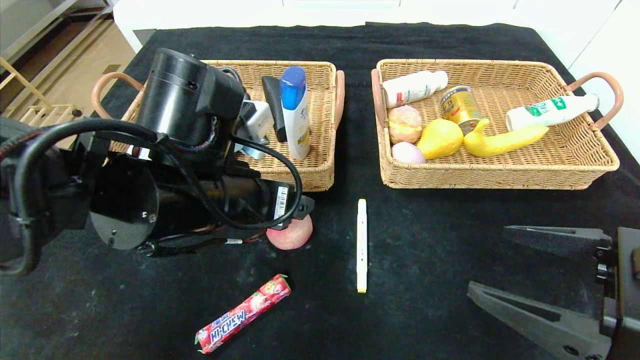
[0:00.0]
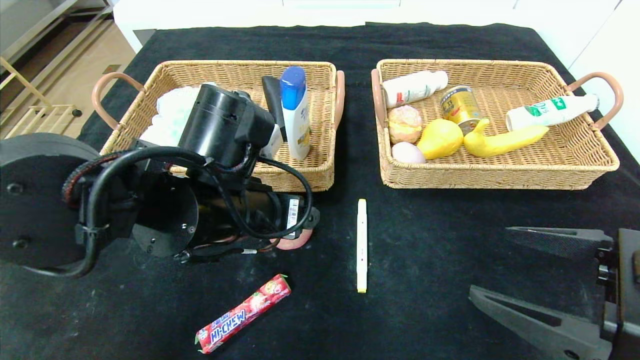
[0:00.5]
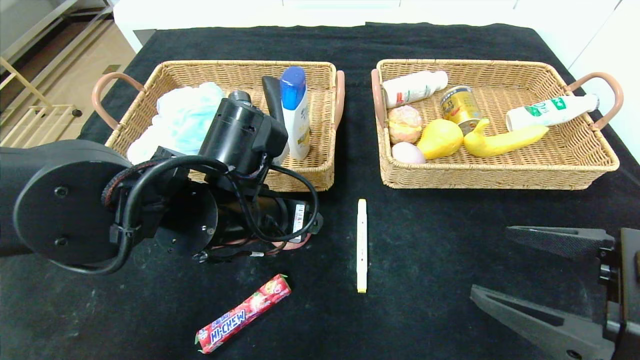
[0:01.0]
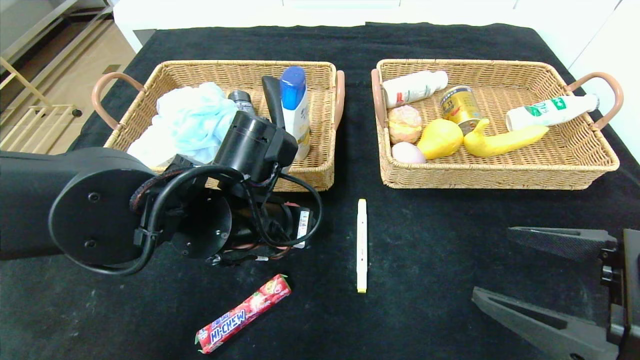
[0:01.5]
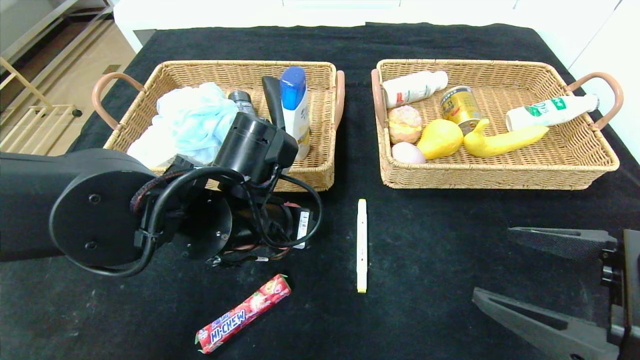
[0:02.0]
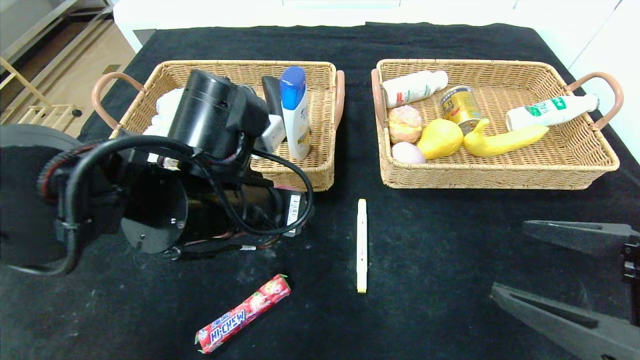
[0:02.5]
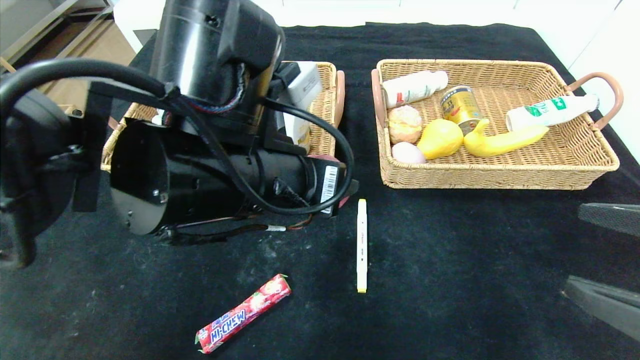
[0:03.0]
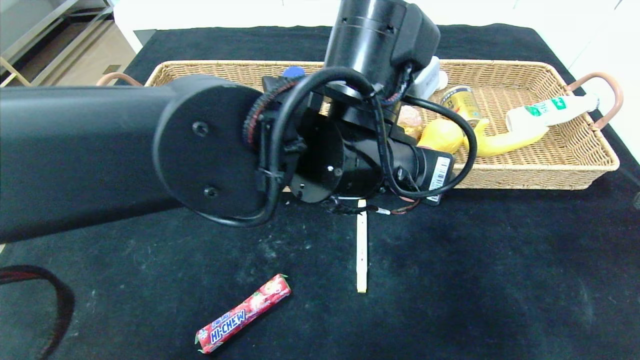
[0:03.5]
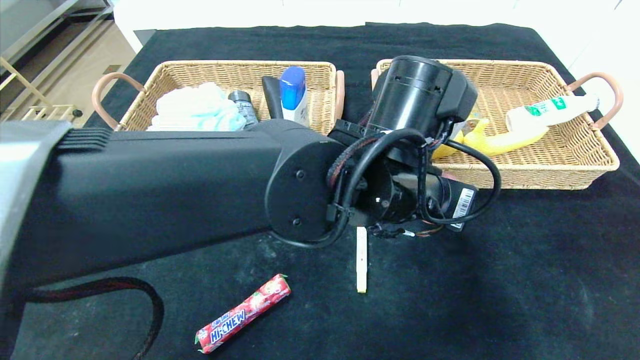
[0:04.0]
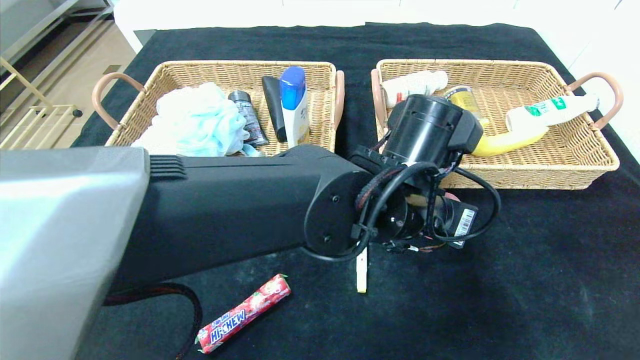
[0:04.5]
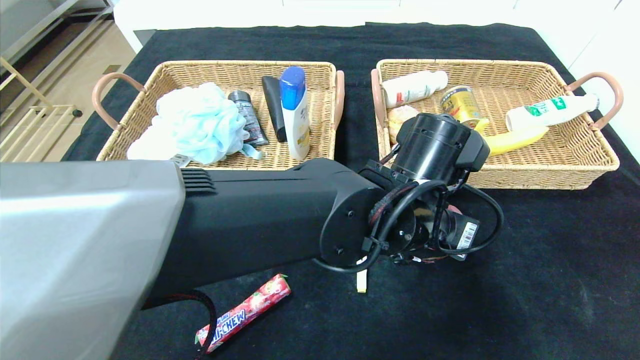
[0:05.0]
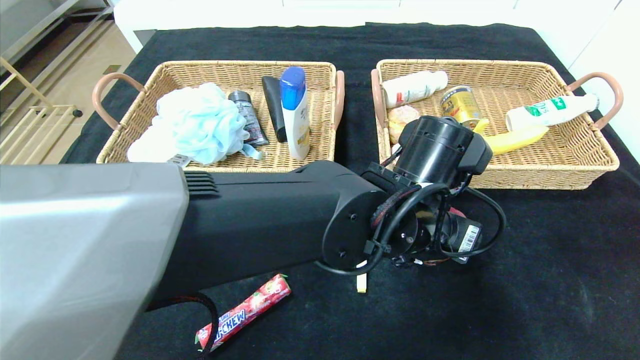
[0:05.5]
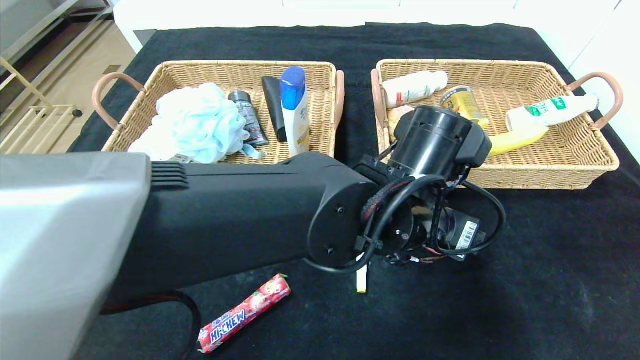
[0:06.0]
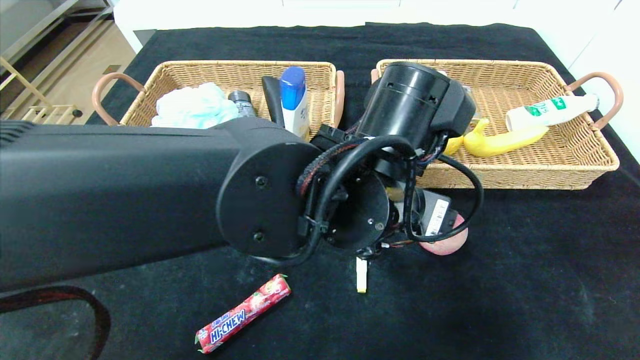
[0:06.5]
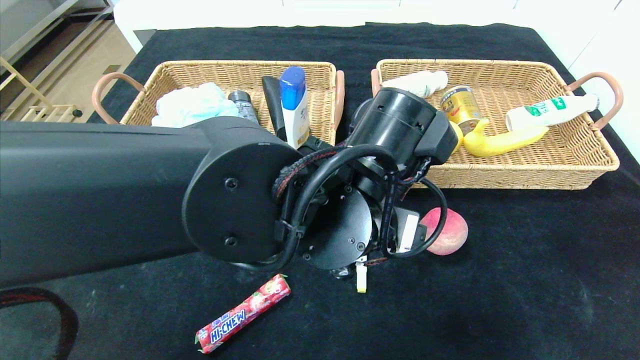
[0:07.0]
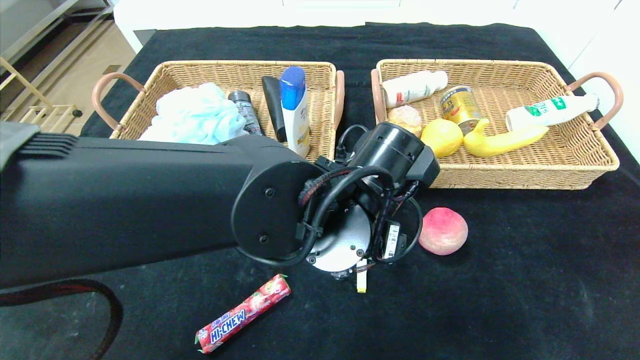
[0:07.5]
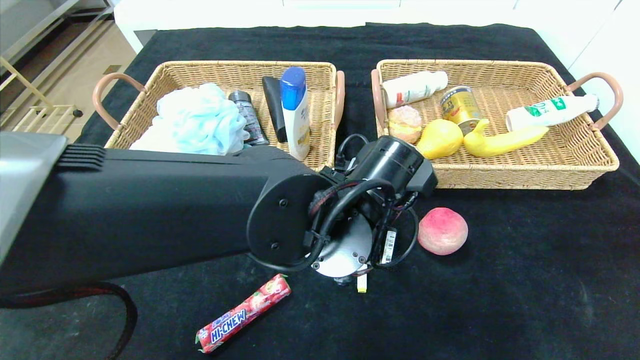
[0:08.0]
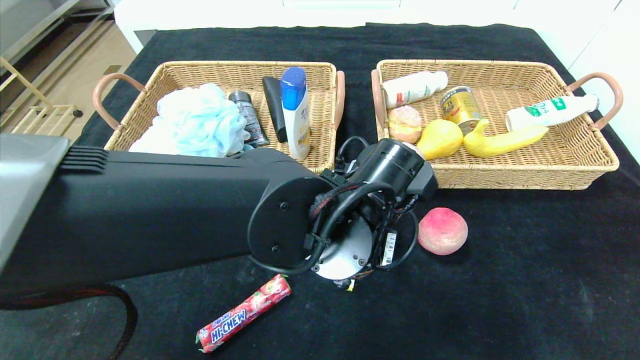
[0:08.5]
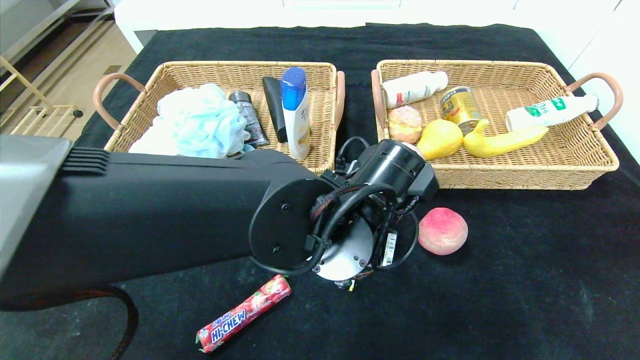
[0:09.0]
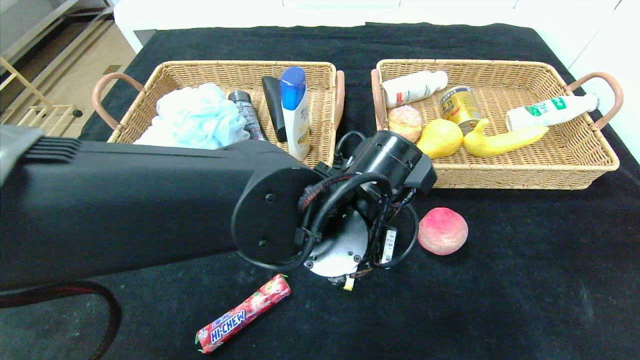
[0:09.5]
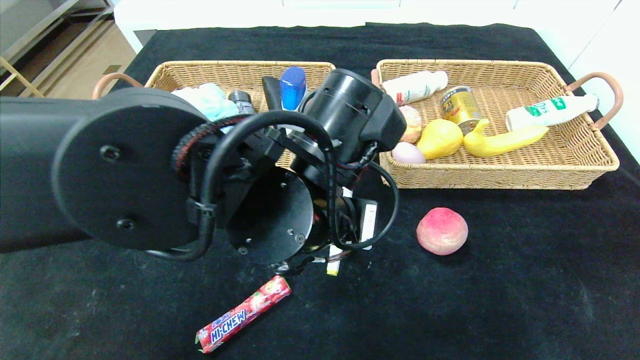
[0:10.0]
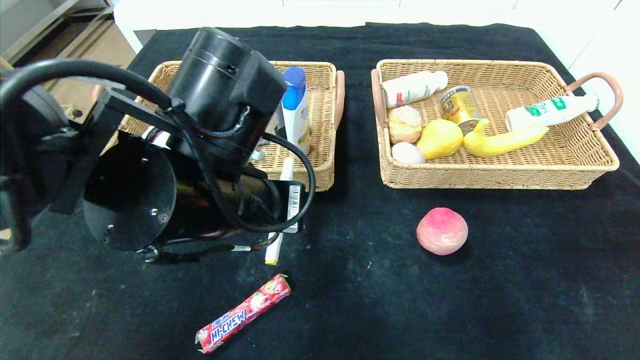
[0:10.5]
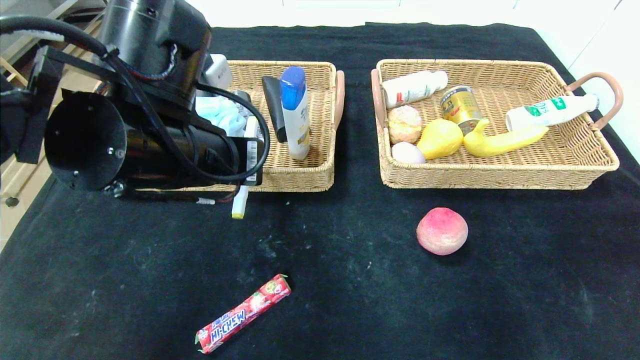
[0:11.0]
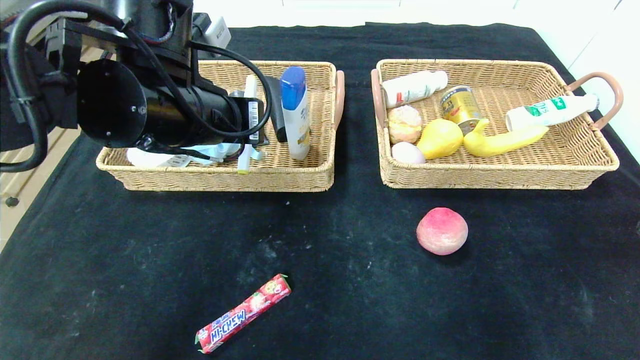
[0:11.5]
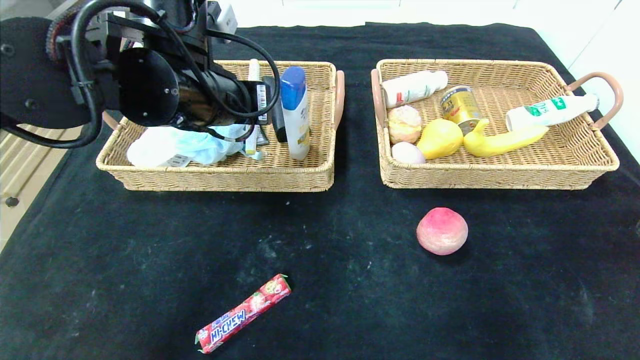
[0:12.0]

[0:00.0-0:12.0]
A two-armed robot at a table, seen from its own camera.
Step, 0:00.0 to 0:06.5: Place the peach in the center of the table.
0:00.0 to 0:02.0: The left gripper shifts by roughly 5 cm, and closes its fingers.
0:02.0 to 0:04.0: The left gripper heads to the right, covering about 15 cm. The right gripper heads backward and to the right, covering some 10 cm.
0:06.0 to 0:08.0: The left gripper shifts approximately 5 cm to the left.
0:08.0 to 0:10.0: The left gripper goes about 5 cm upward, and closes up.
0:10.0 to 0:12.0: The left gripper travels to the left, forward and upward by some 15 cm.

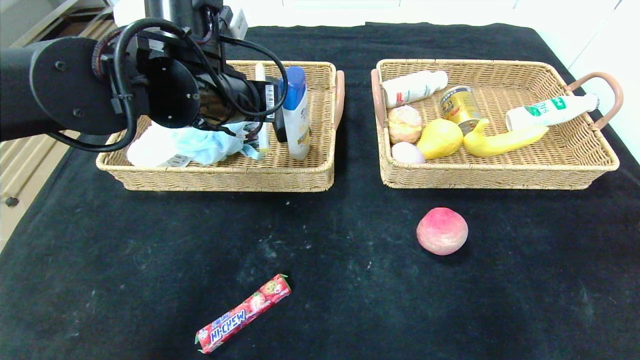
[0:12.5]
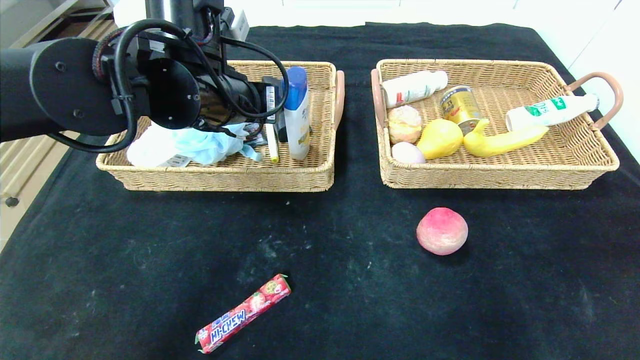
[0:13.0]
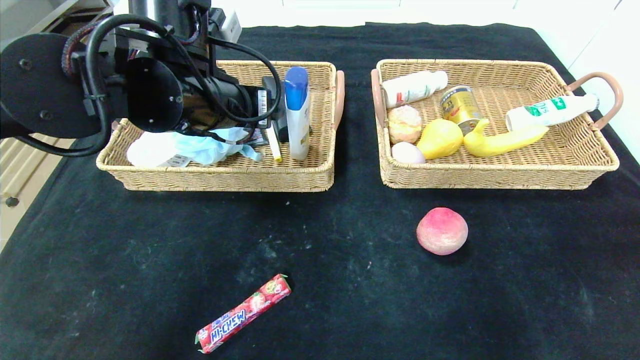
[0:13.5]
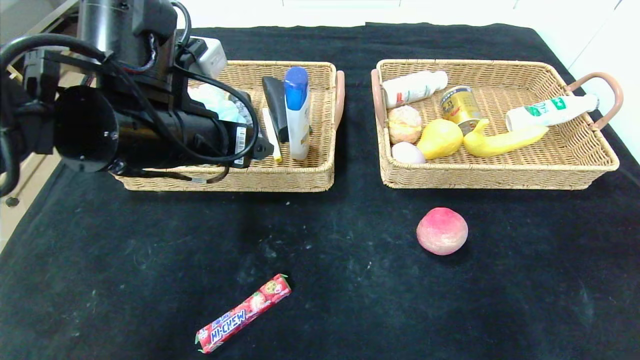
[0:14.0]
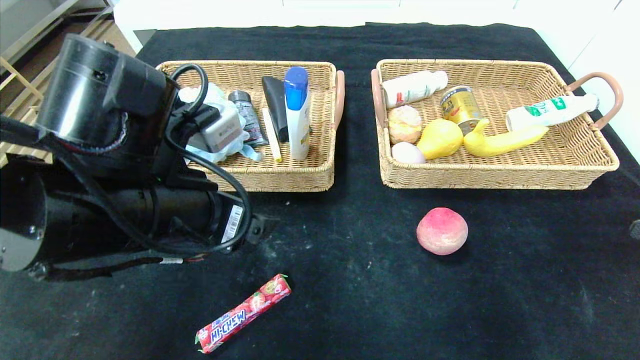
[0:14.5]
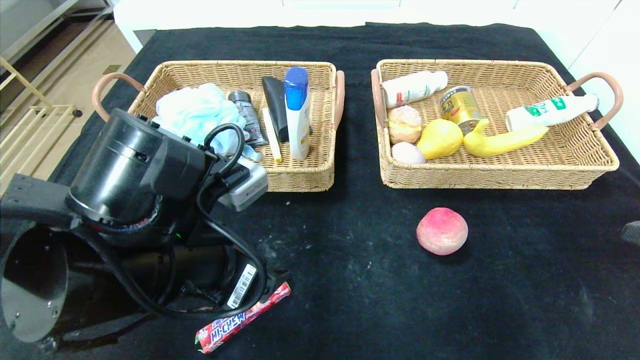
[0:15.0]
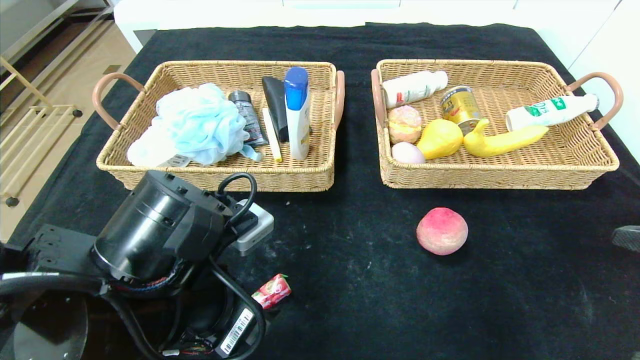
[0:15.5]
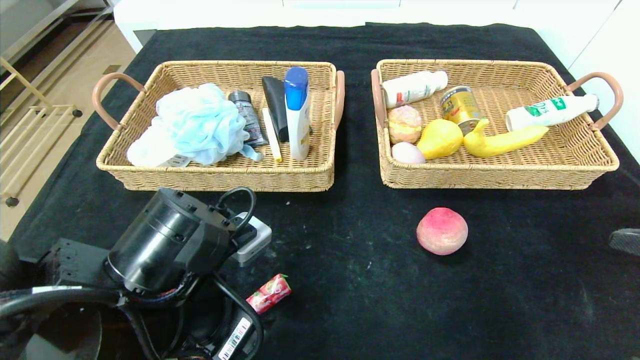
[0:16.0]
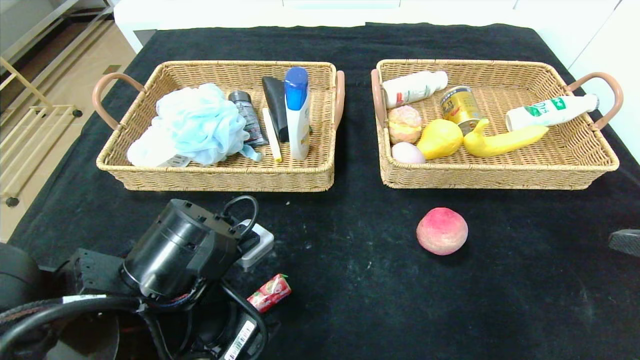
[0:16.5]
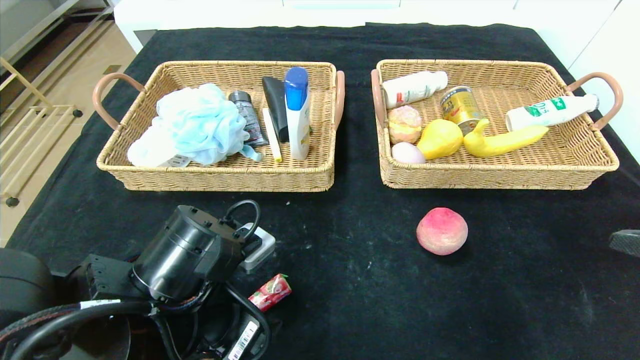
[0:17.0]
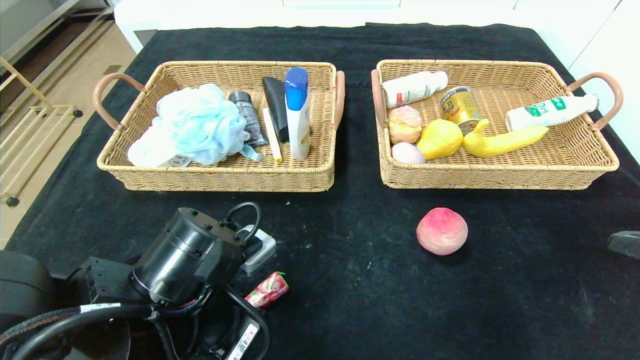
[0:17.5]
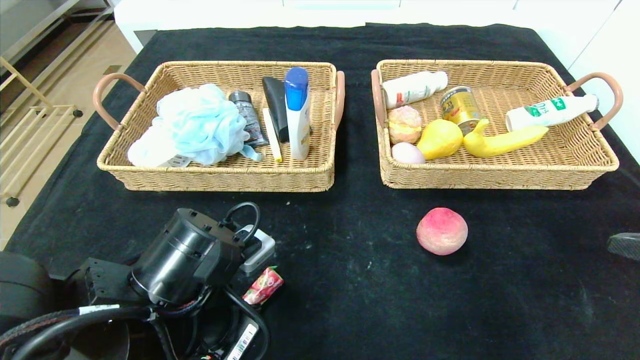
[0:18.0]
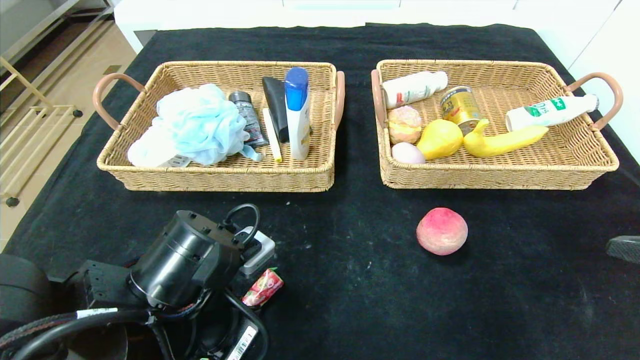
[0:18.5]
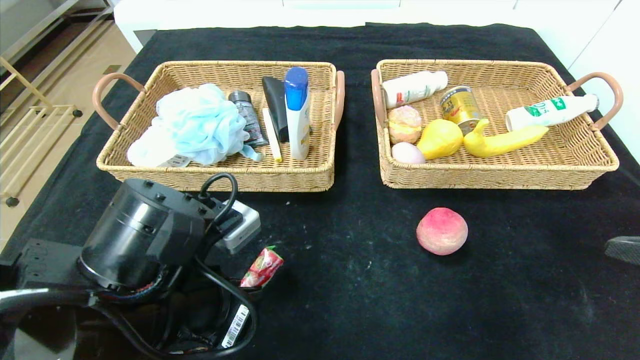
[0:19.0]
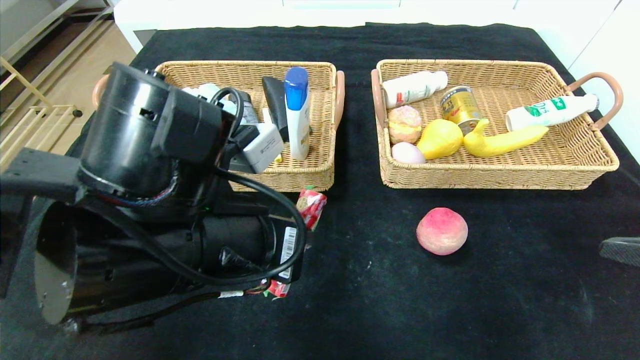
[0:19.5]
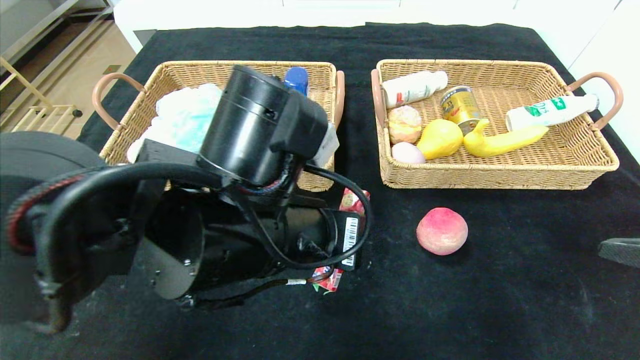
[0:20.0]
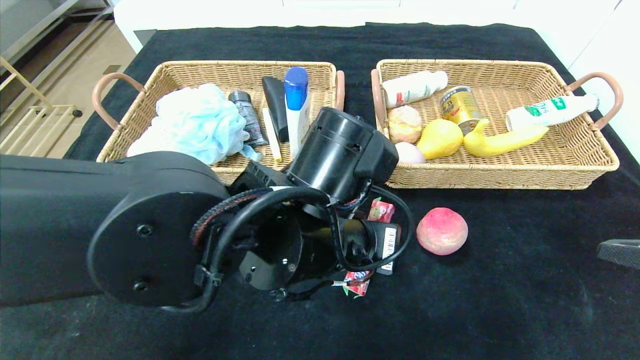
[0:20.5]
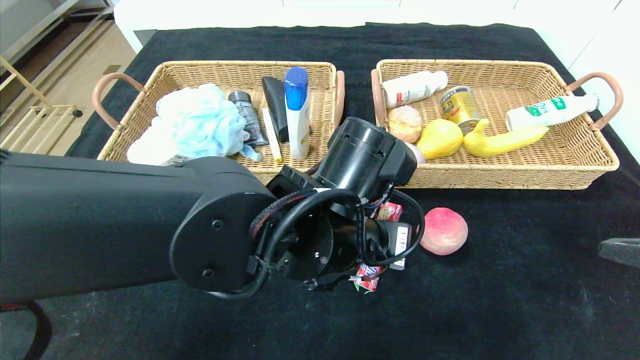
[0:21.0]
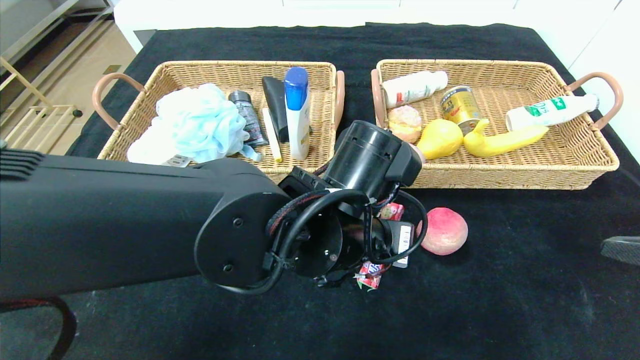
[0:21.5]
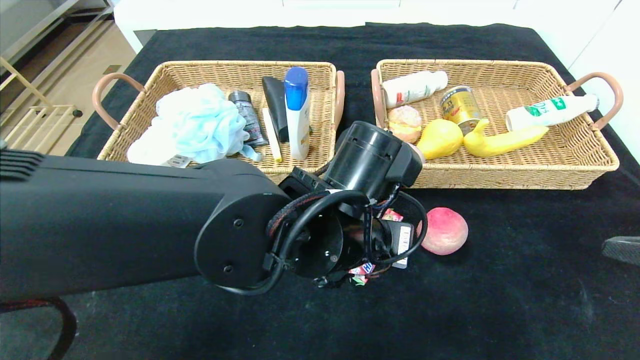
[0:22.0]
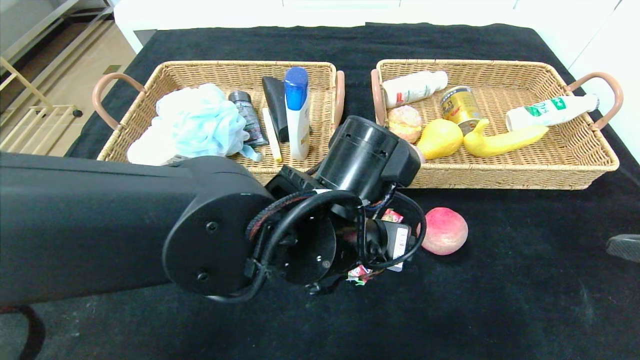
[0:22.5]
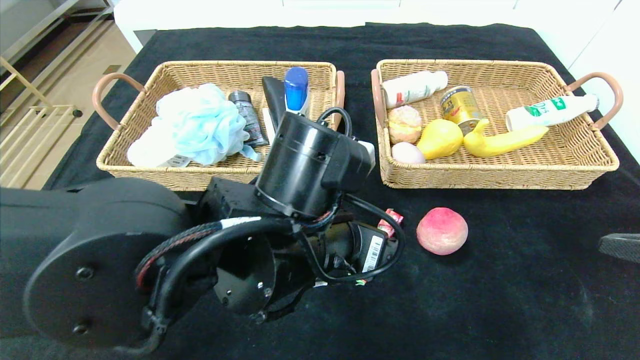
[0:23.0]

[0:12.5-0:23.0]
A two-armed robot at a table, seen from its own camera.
Step, 0:14.0 to 0:22.5: Place the fruit fudge in the center of the table.
0:12.5 to 0:14.5: The left gripper moves backward and downward, about 15 cm, and opens up.
0:14.5 to 0:16.5: The left gripper heads downward, covering some 10 cm.
0:16.5 to 0:19.0: The left gripper closes.
0:19.0 to 0:21.0: The left gripper heads to the right and forward, covering roughly 15 cm.
0:21.0 to 0:23.0: The left gripper opens its fingers.
